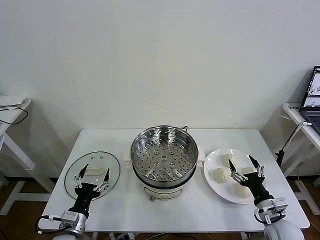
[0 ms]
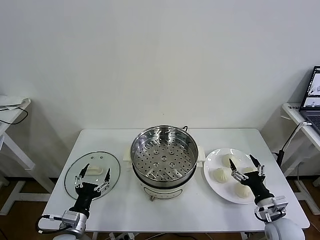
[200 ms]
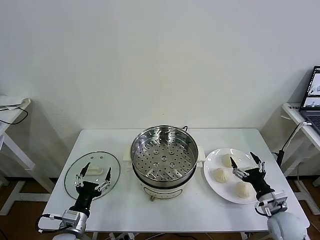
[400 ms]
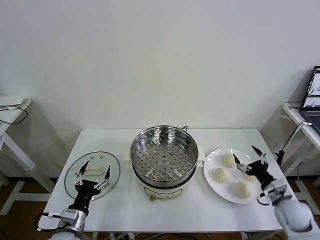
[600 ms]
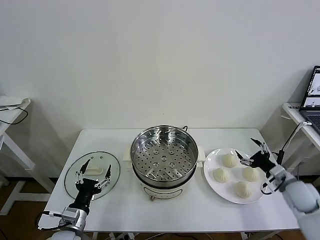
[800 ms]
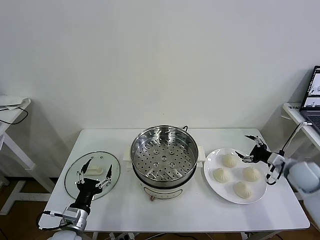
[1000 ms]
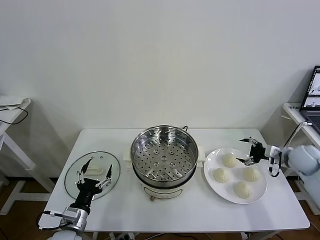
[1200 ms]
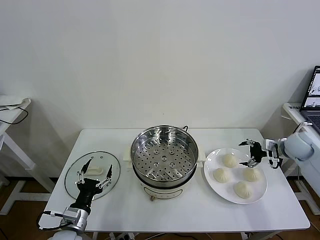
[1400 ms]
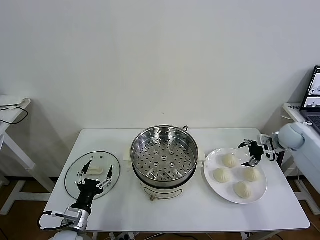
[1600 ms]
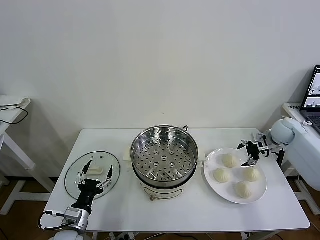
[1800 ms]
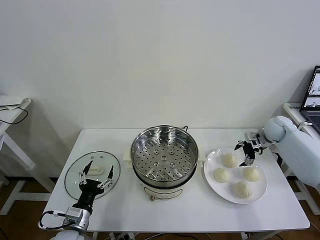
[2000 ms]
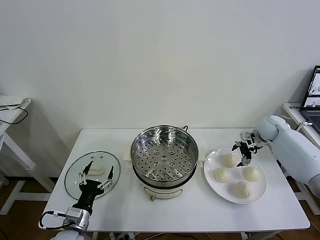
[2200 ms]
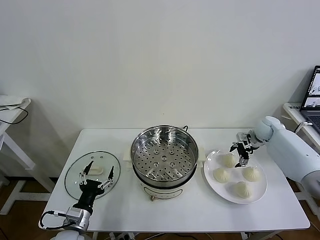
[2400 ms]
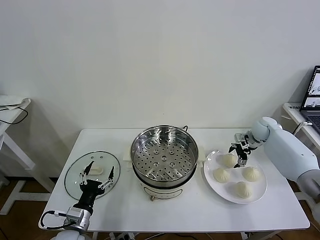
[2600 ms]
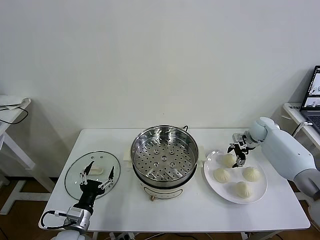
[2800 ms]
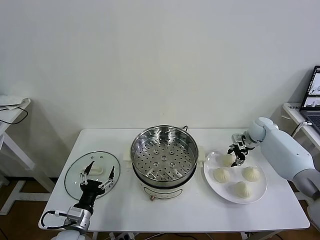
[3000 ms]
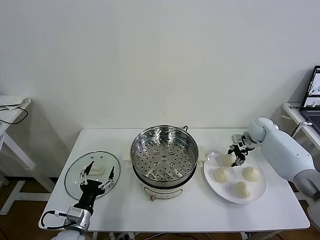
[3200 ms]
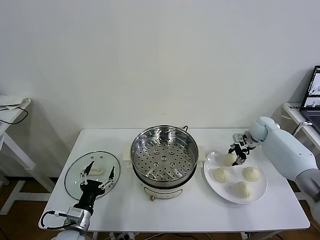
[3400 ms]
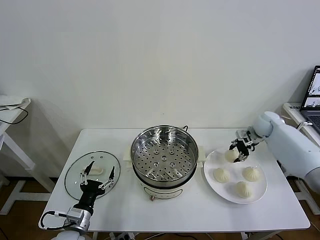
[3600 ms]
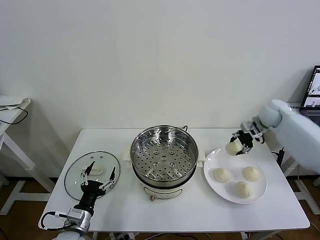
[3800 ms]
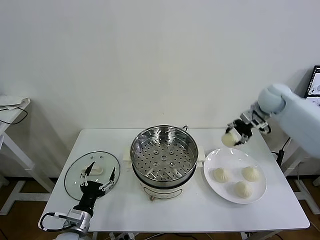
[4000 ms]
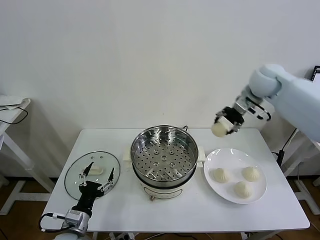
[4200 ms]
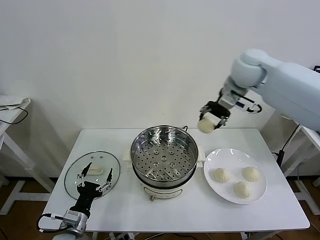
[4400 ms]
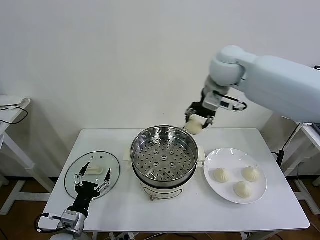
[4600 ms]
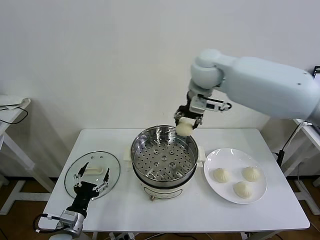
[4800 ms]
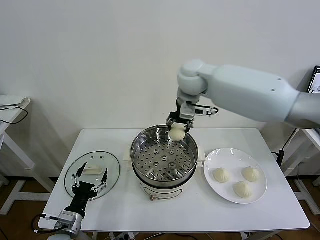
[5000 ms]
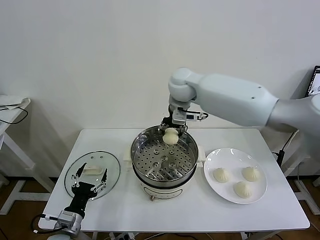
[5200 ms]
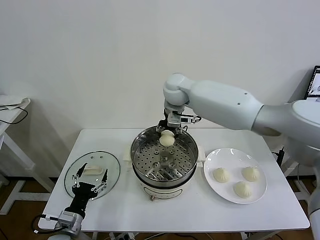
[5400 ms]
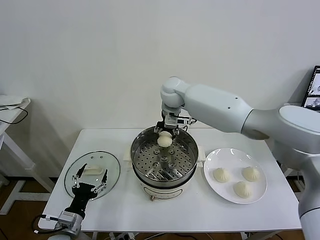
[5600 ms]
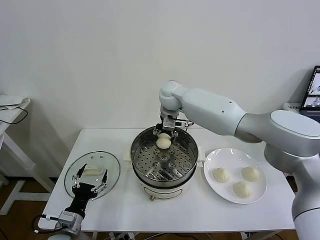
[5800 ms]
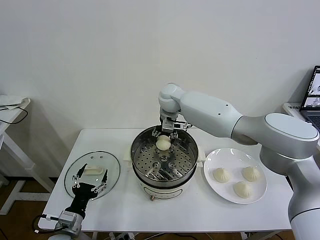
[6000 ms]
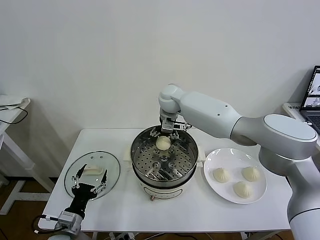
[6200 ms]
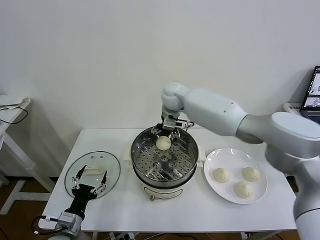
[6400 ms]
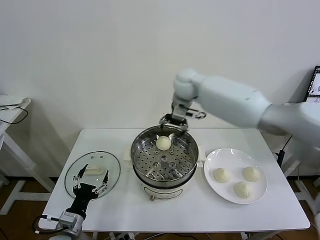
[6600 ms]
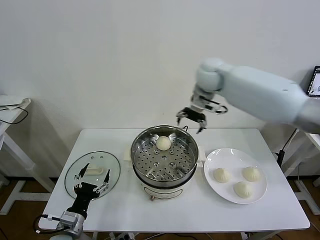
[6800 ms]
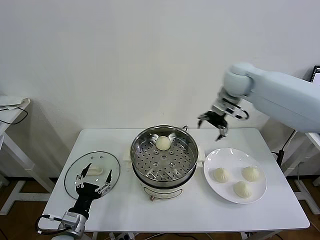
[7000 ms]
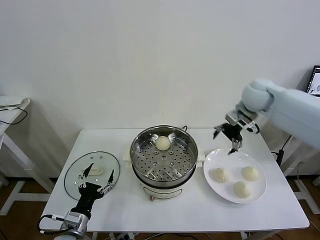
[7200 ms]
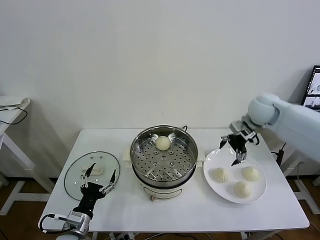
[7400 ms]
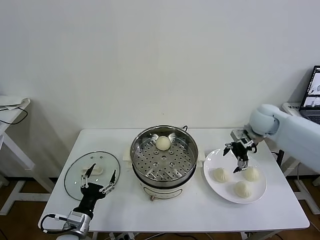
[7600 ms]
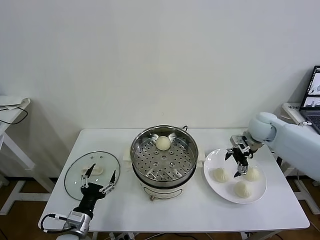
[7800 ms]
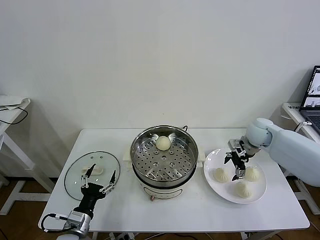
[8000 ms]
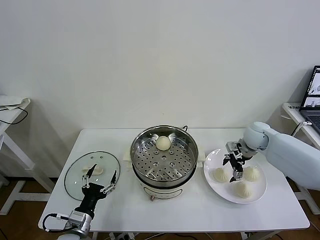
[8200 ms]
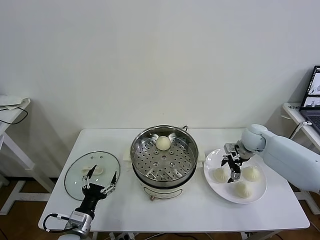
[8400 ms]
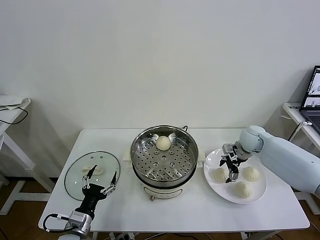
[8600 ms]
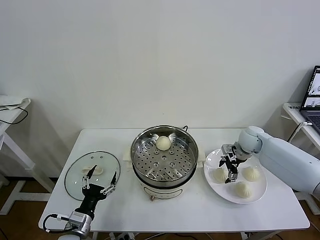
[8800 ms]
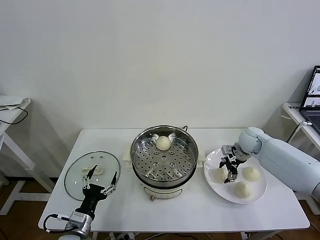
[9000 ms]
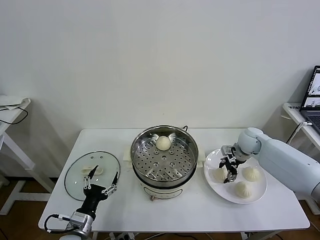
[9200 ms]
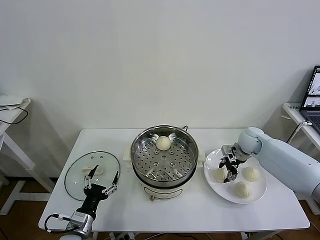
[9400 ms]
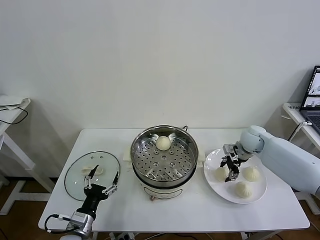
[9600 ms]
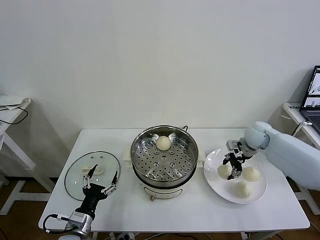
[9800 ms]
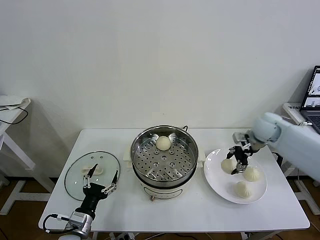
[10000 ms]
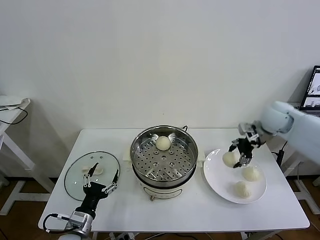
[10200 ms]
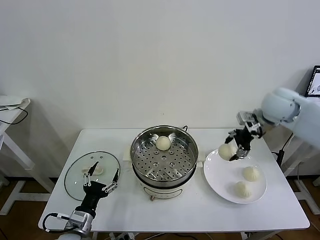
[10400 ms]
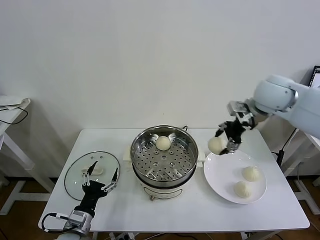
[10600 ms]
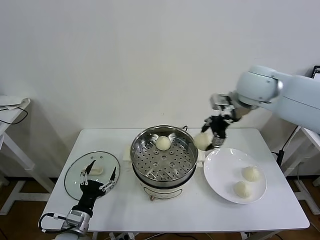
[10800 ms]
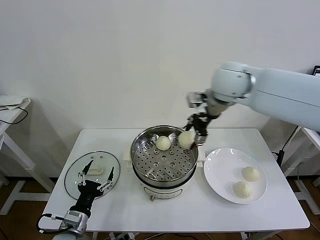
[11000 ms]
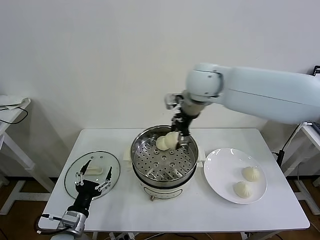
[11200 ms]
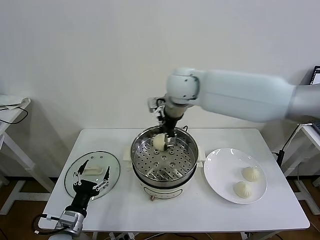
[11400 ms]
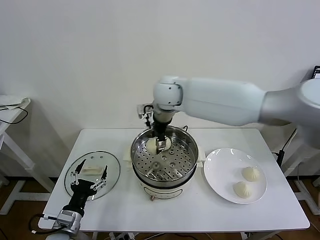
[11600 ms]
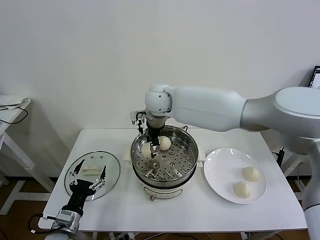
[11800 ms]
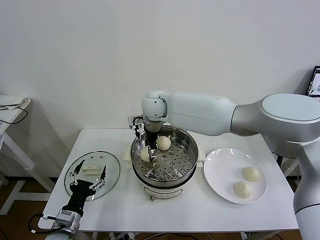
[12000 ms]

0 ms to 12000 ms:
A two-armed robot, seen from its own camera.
Task of the whole recording: take steamed baozi put them in steamer then cover it.
Step, 0 ms to 3200 ms: Grasp the baozi in the plate with right gripper.
Step, 3400 ms to 6200 ms: Place the baozi on the steamer with right gripper.
Step, 6400 ms to 9400 ms: Grasp the baozi in the plate with right gripper.
1600 ms to 3000 ms: The right gripper heads forward and to the left, covering some 10 cm, and closes its fingers.
3000 ms to 4400 ms: The right gripper is displaced upward and to the left by roughly 35 cm.
4400 ms to 6000 ms: The right gripper is displaced to the left and downward by some 25 cm, and opens its fingers.
6000 ms to 7600 ms: The right gripper travels to the right by roughly 30 cm.
7600 ms to 9000 ms: The right gripper travels downward by some 10 cm, and closes its fingers.
9000 ms to 10400 ms: The right gripper heads upward, covering some 20 cm.
10400 ms to 12000 ms: The right gripper shifts about 35 cm to the left.

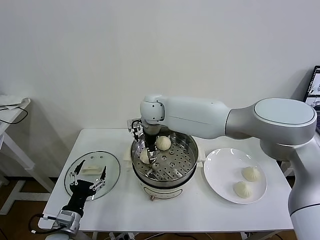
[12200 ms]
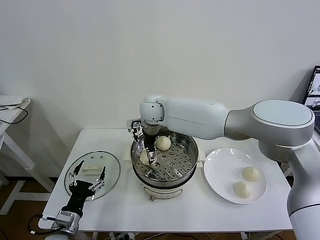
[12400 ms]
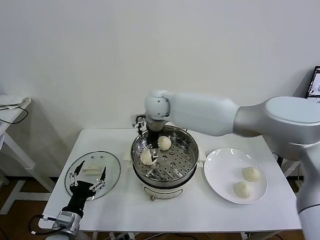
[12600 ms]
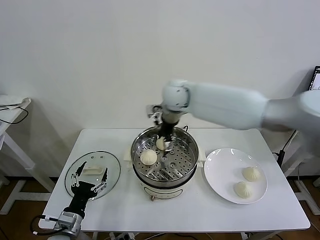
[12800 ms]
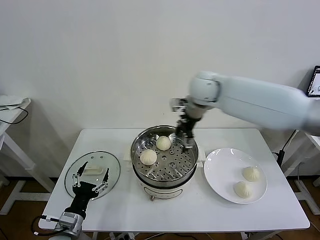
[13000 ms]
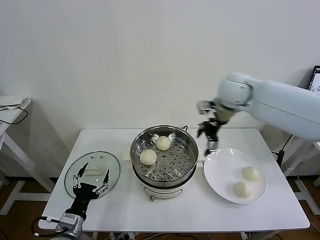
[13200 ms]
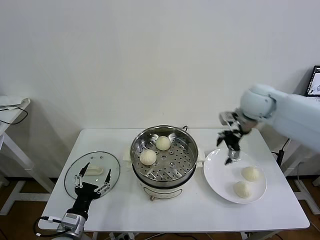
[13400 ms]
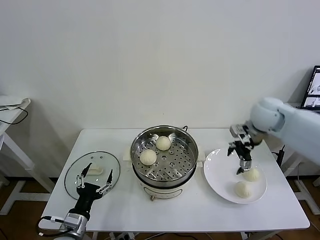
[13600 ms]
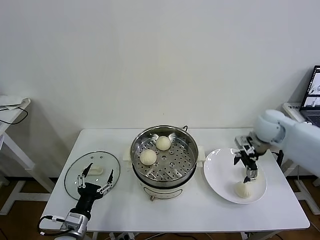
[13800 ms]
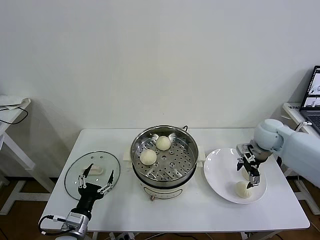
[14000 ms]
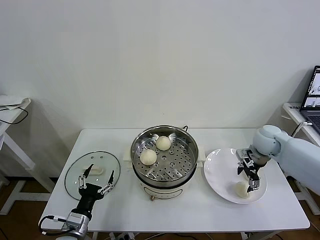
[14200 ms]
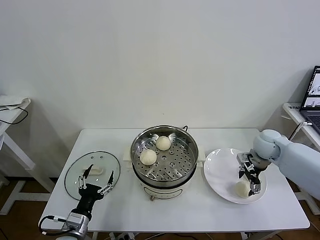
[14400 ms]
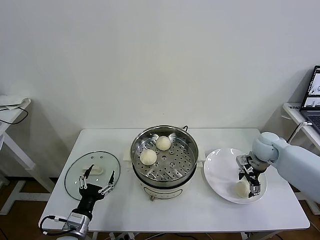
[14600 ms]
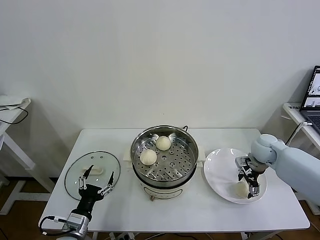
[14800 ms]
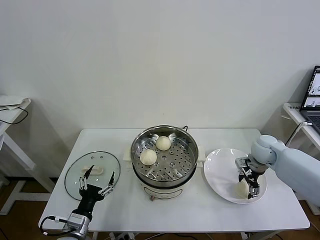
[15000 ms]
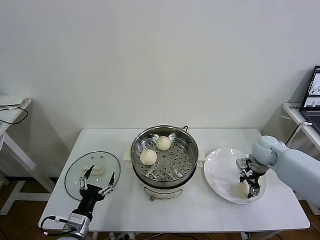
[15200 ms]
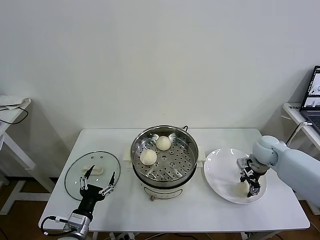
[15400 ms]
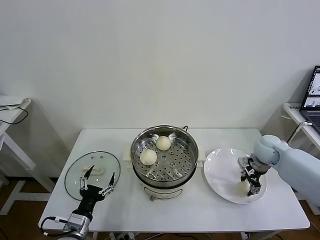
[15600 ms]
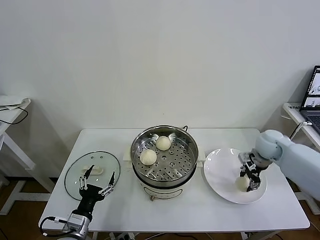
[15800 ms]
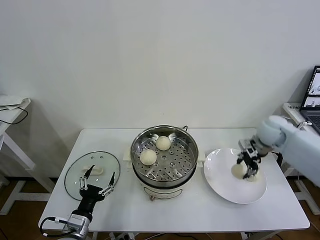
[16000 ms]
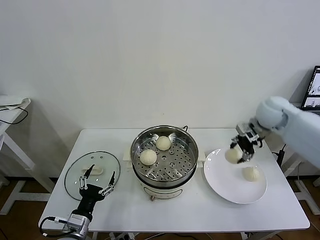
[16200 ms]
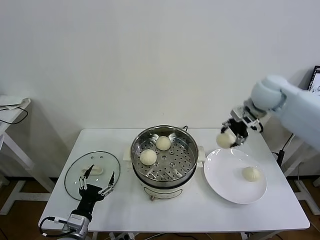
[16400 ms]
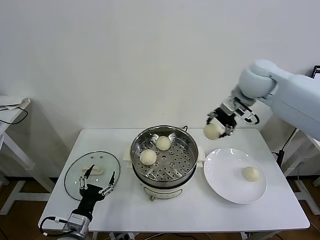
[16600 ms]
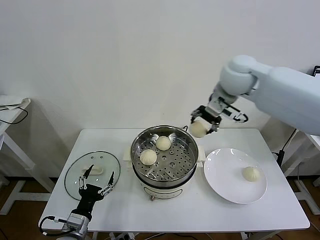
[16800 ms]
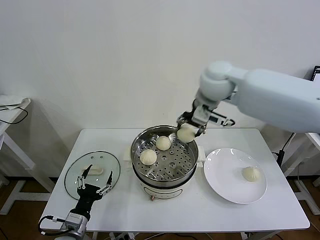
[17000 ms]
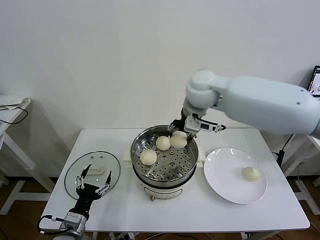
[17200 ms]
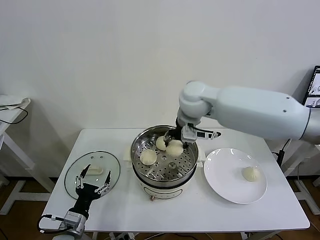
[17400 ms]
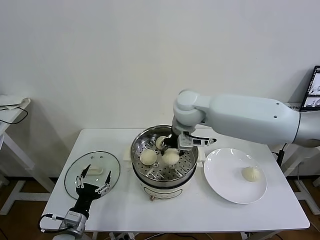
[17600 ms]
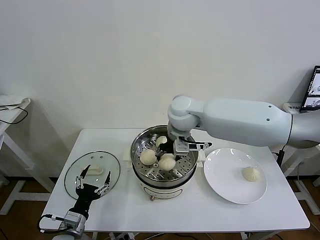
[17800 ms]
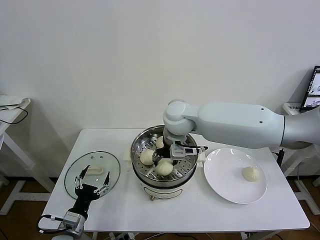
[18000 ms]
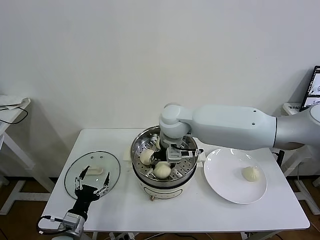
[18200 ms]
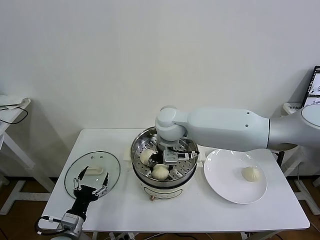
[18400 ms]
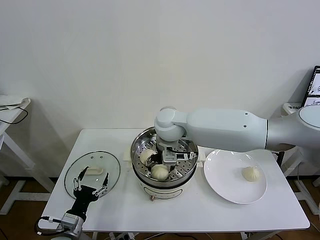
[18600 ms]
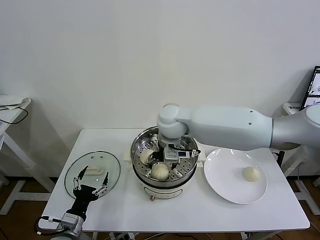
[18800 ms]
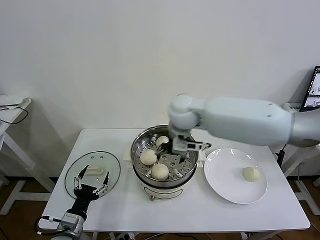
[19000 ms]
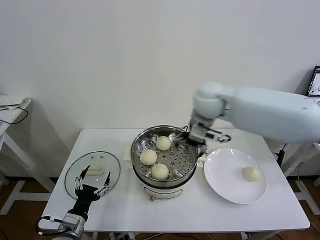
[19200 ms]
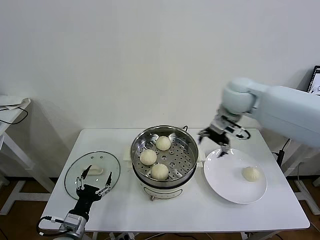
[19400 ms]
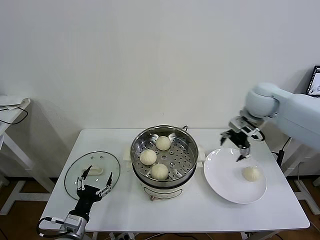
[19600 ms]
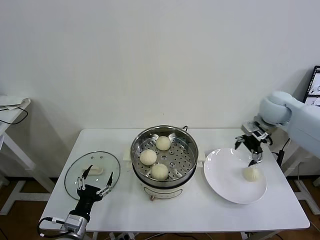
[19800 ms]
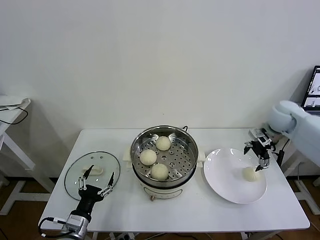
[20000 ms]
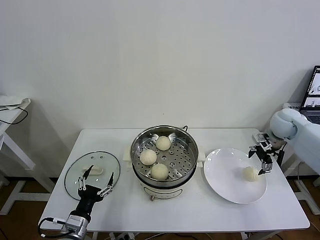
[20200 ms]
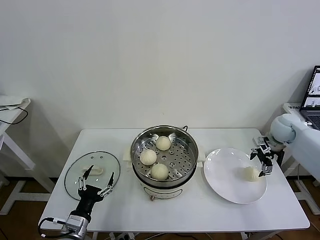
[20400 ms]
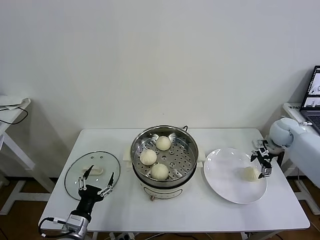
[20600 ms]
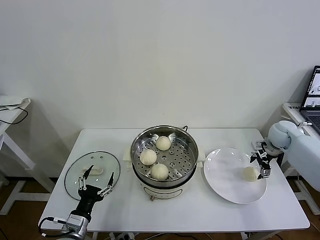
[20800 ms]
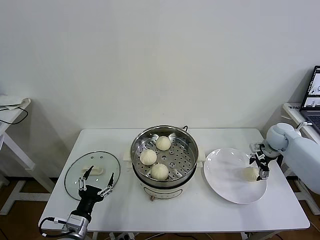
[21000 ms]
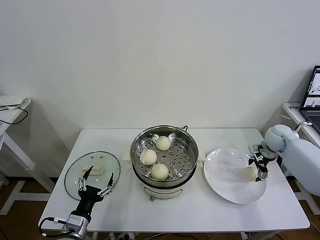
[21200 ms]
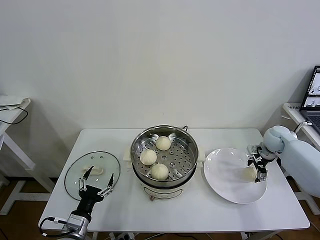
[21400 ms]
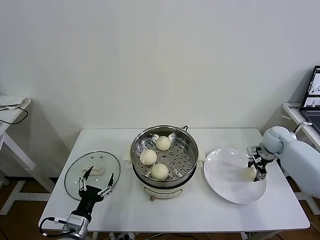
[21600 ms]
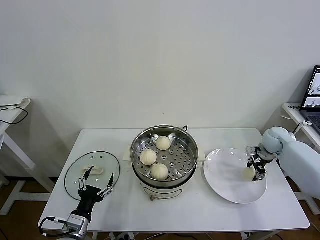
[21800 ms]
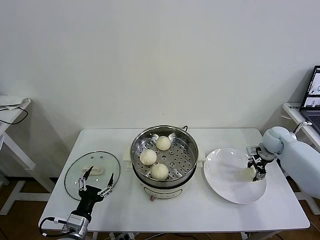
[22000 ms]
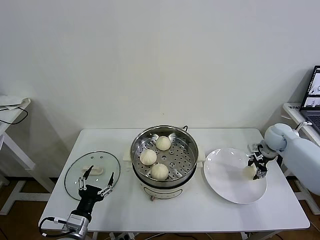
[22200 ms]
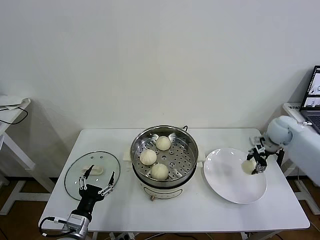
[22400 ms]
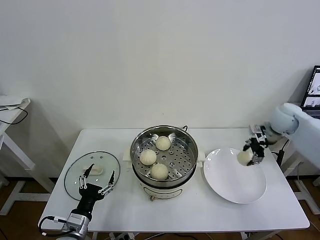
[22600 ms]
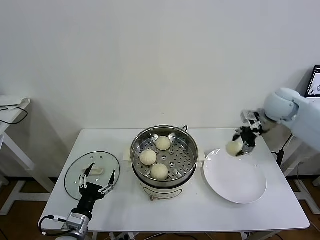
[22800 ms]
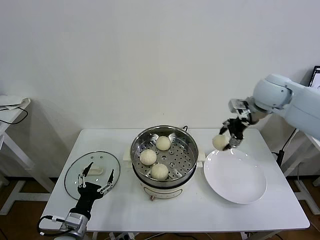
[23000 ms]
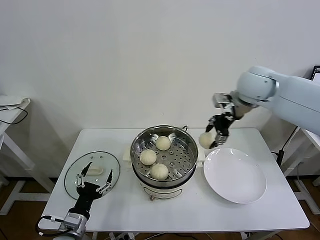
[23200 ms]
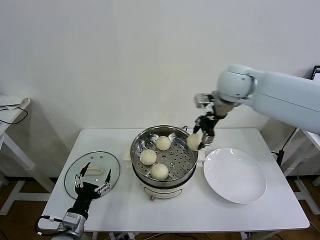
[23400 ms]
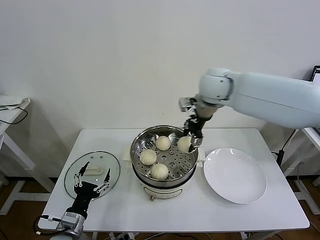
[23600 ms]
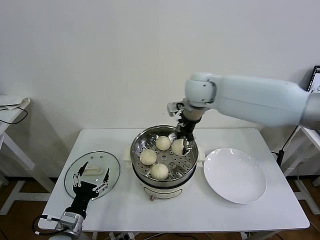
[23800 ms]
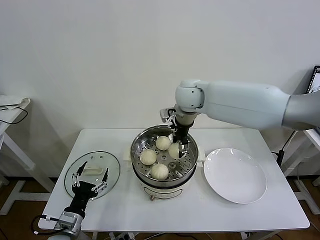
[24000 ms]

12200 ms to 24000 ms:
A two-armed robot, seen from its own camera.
Task of the whole recording: take steamed baozi put them in steamer then cover it.
Step, 12800 ms to 15800 ms: Grasp the baozi in the plate with right gripper.
Step, 16000 ms to 18600 ms: Place the baozi on the steamer with right gripper.
Step, 19000 ms to 22000 ms: Grasp the baozi in the plate with right gripper.
12200 ms to 13600 ms: The right gripper goes roughly 35 cm to the right, and opens up.
13600 ms to 15200 ms: The right gripper is displaced downward by about 15 cm, and closes.
15200 ms to 16600 ms: The right gripper is displaced upward and to the left by some 30 cm.
16600 ms to 18200 ms: The right gripper moves to the left and downward, about 25 cm.
18200 ms to 19600 ms: The right gripper shifts some 25 cm to the right, and opens.
19600 ms to 21000 ms: The right gripper travels downward and to the right by approximately 25 cm.
21000 ms to 22600 ms: The right gripper goes roughly 10 cm upward, and closes up.
22600 ms to 24000 ms: The right gripper travels to the left by approximately 35 cm.
